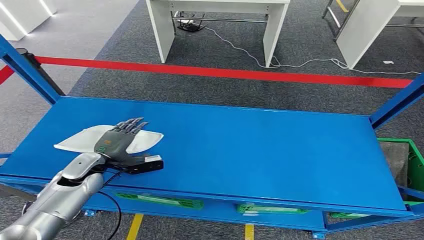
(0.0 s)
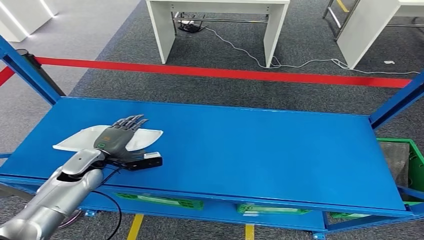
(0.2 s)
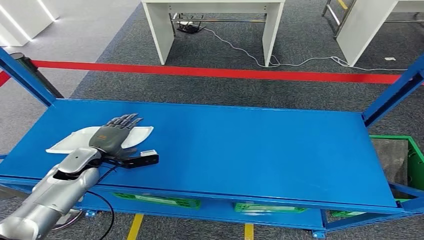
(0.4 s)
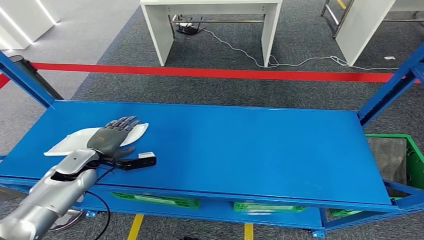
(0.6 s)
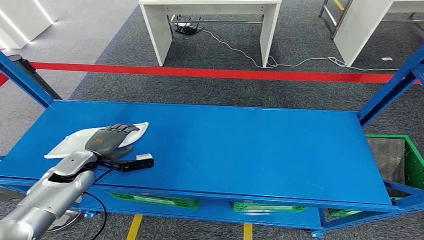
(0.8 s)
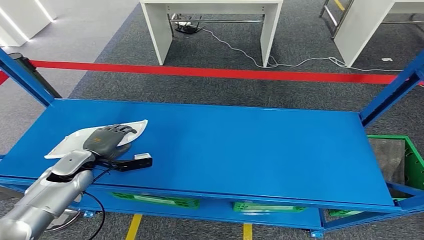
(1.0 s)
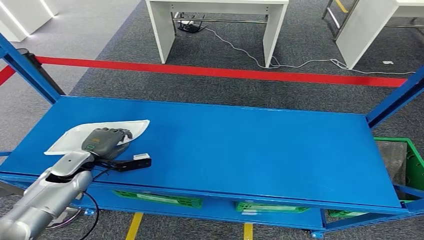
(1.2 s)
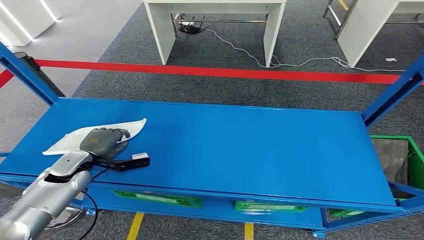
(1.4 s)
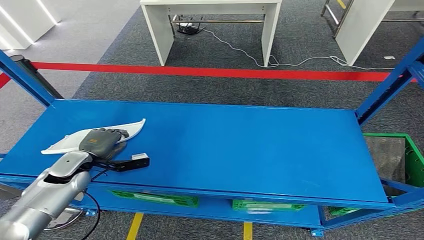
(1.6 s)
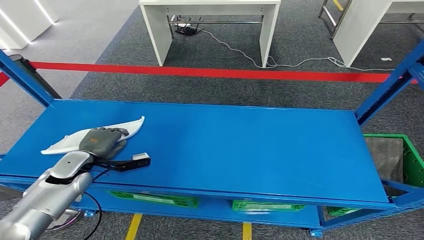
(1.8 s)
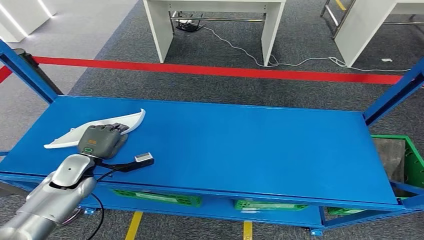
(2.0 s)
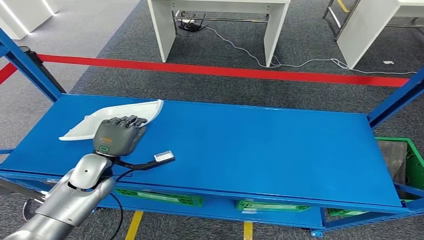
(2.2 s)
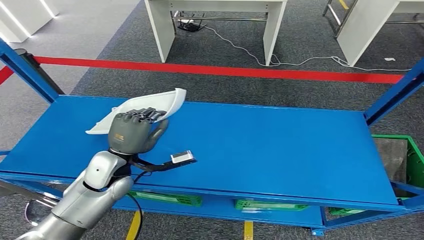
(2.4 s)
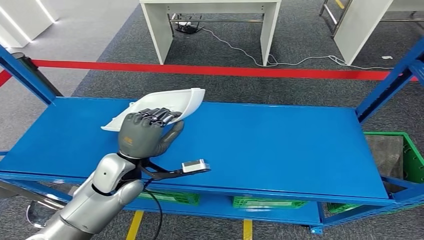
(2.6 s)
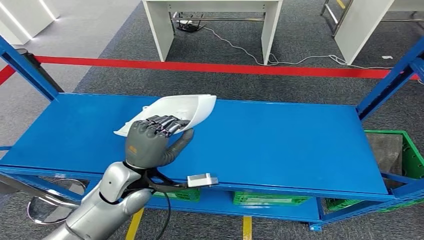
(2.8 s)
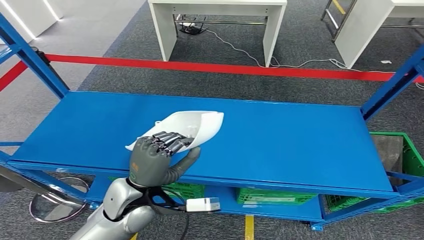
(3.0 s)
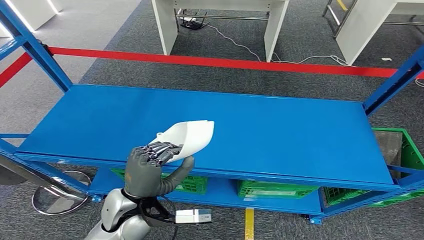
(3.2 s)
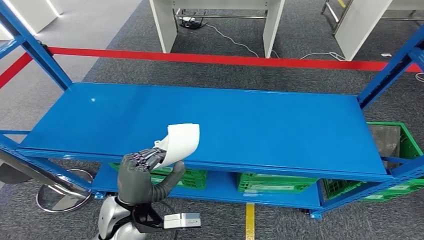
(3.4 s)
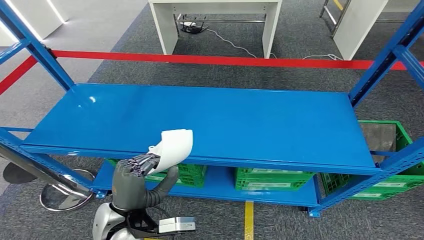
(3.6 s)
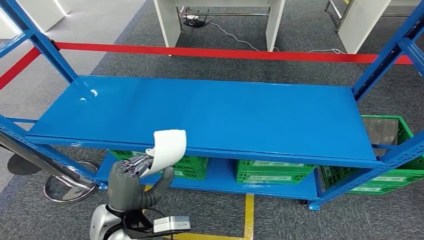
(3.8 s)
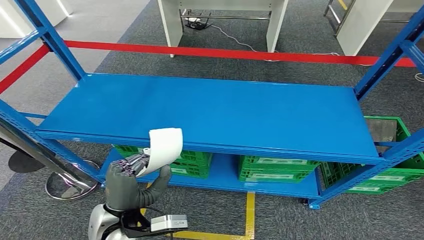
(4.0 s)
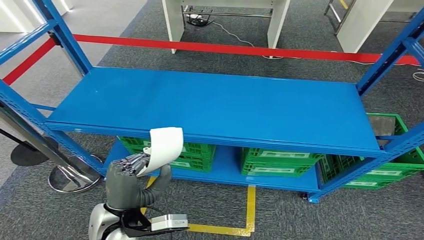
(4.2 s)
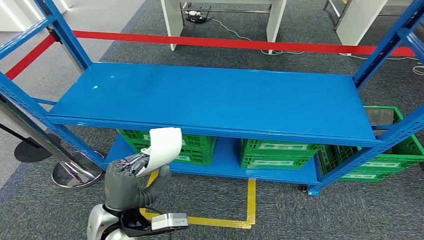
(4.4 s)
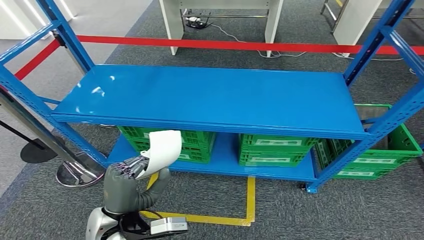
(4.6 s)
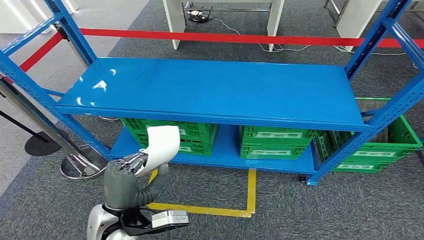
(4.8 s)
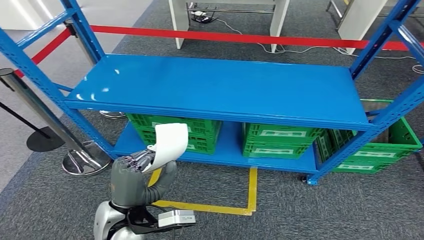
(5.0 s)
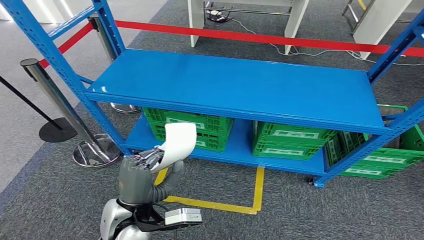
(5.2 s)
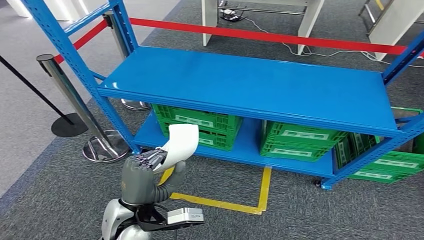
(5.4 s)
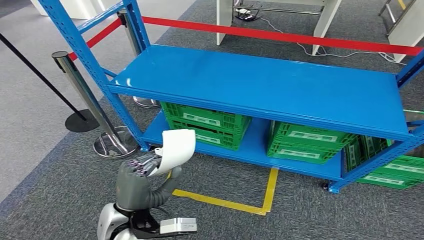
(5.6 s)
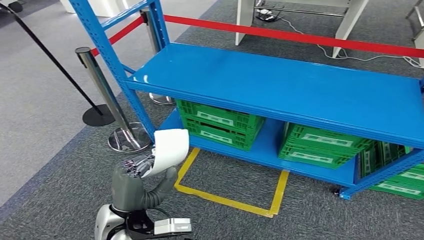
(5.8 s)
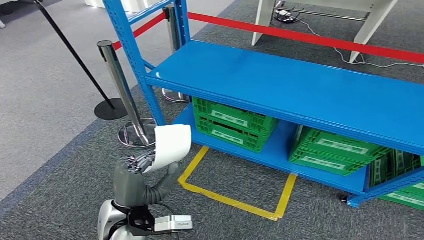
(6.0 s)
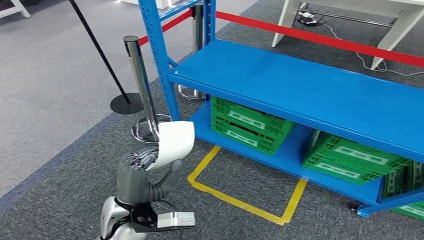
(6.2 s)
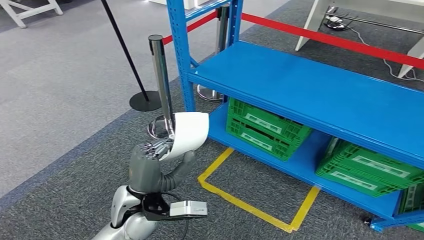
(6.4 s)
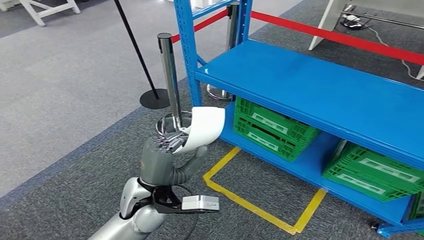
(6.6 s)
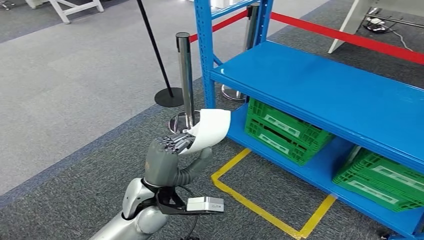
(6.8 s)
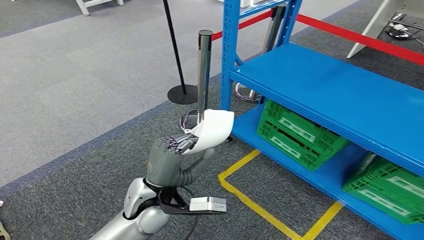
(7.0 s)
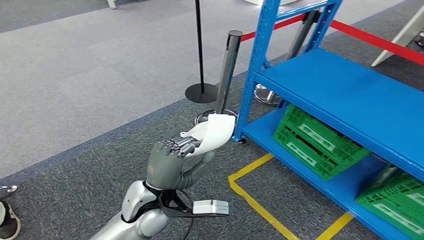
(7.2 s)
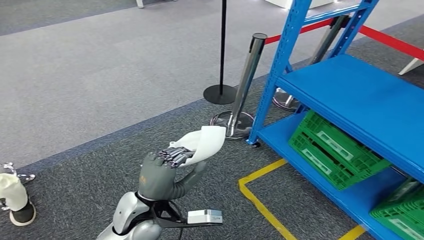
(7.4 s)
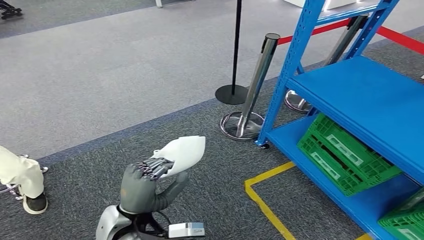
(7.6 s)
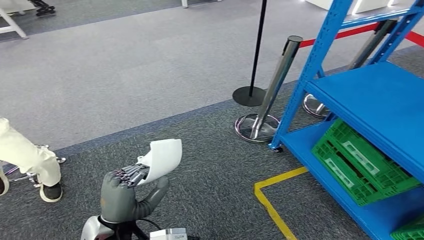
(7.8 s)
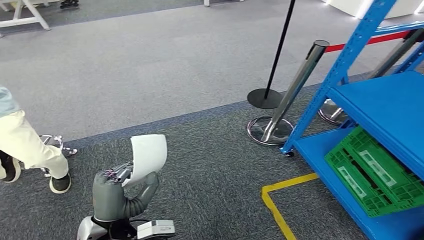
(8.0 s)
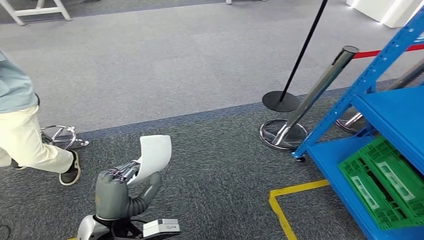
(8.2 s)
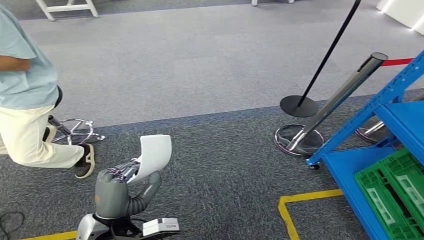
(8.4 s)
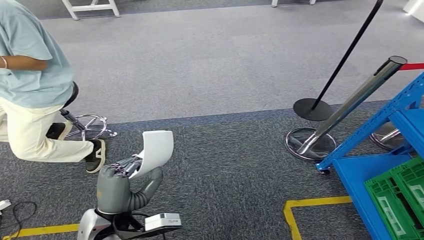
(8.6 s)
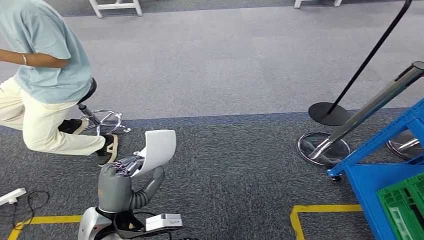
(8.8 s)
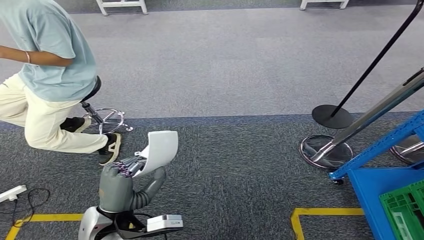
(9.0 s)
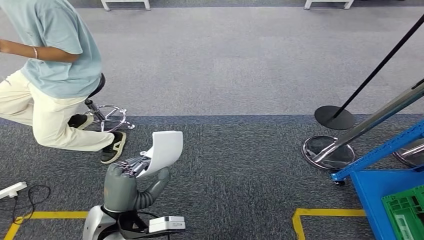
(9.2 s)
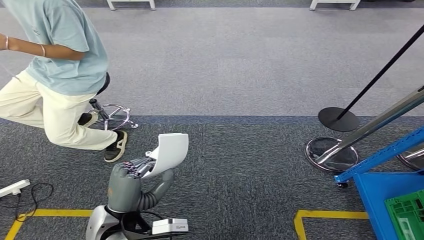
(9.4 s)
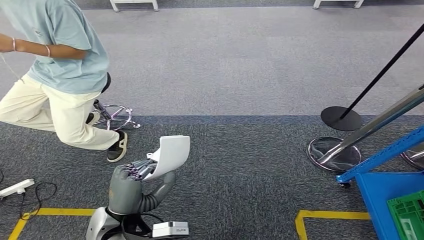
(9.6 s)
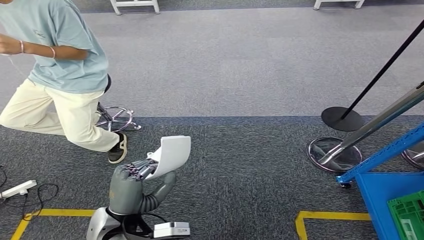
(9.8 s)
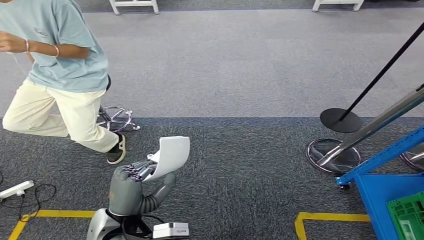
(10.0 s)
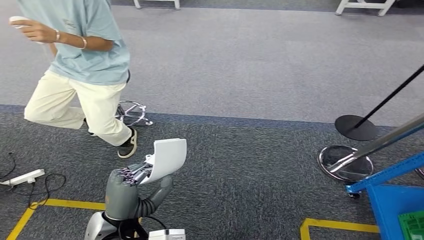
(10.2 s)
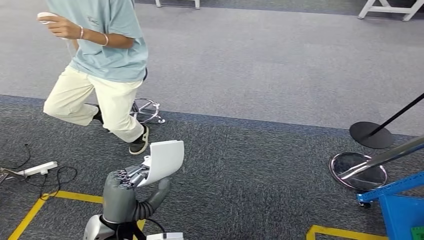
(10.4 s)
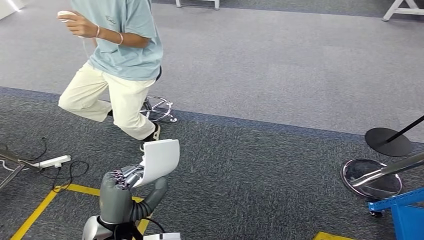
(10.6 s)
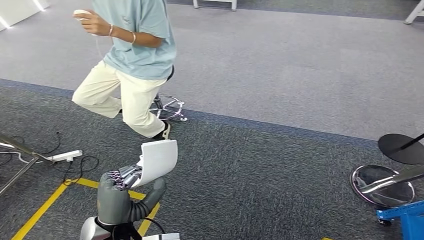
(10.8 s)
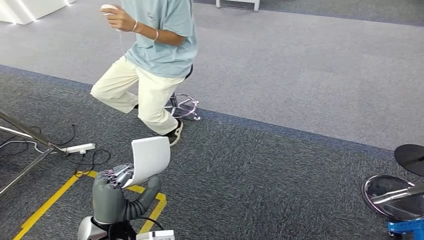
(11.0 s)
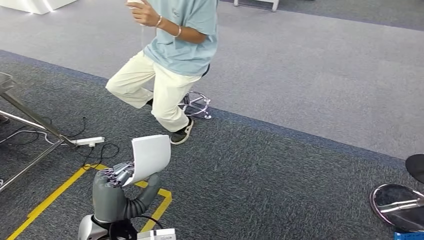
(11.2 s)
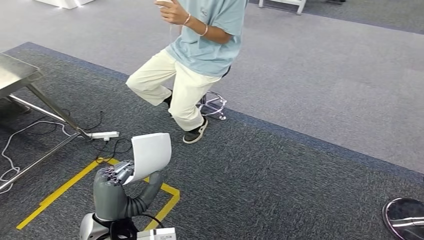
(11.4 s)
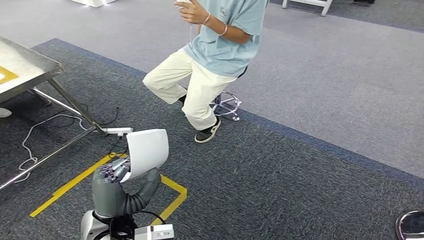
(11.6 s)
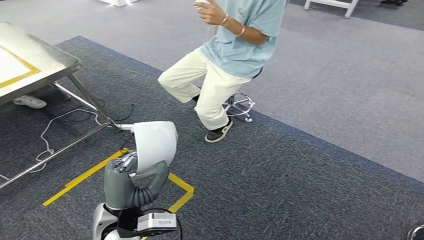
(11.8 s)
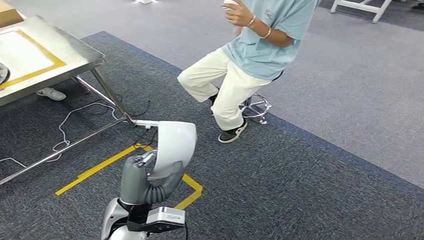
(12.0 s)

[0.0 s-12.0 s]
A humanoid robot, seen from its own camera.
Step, 0.0 to 3.8 s: Pick up the small component from the shelf.

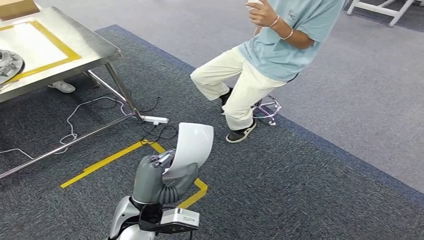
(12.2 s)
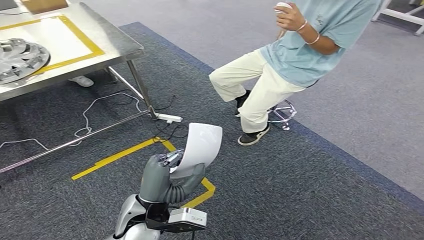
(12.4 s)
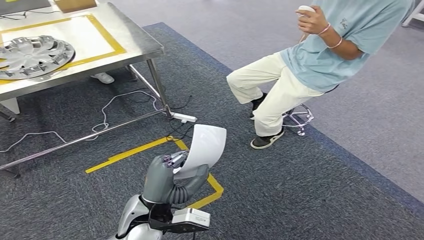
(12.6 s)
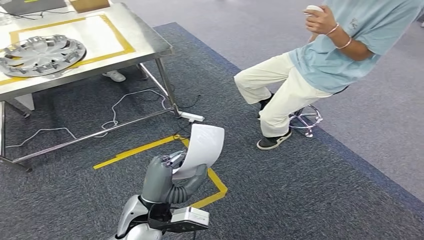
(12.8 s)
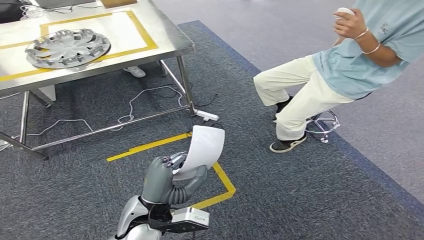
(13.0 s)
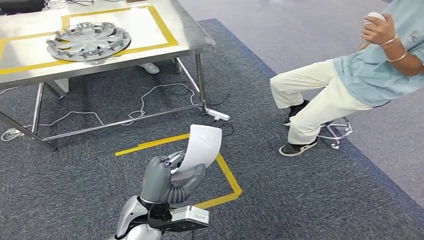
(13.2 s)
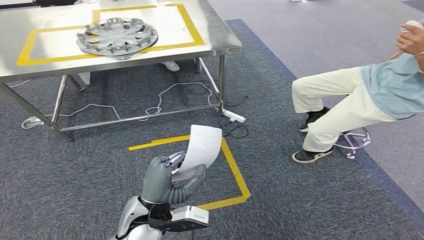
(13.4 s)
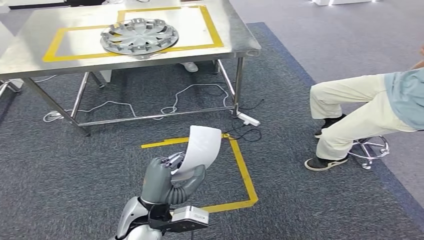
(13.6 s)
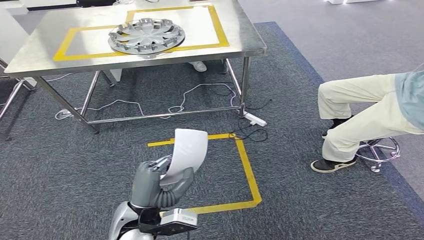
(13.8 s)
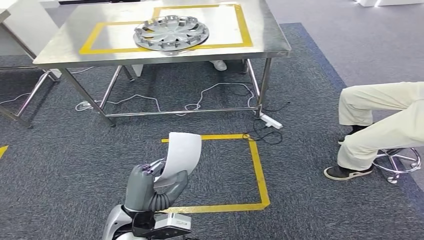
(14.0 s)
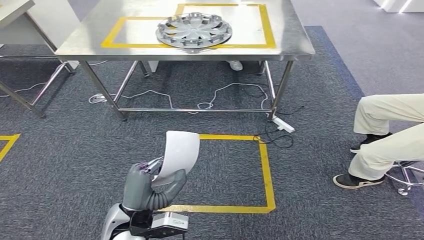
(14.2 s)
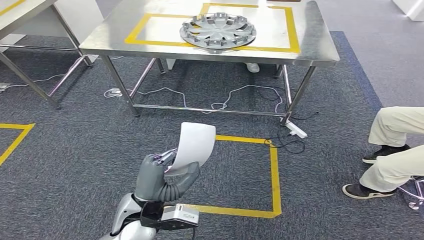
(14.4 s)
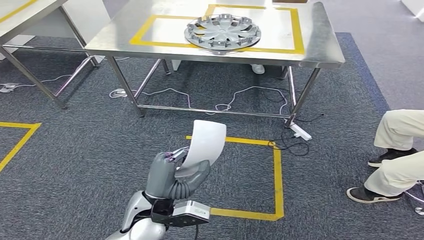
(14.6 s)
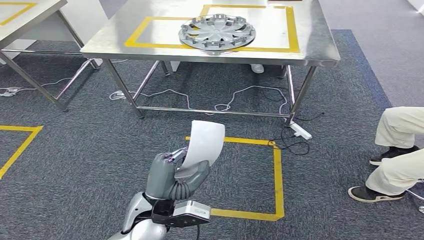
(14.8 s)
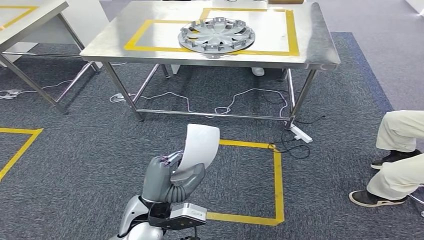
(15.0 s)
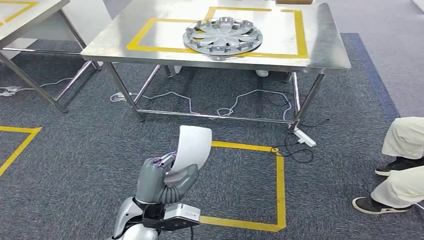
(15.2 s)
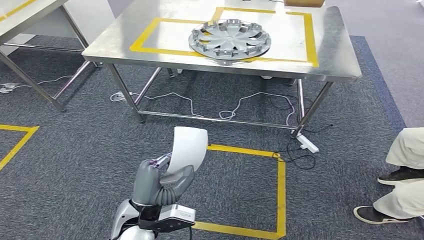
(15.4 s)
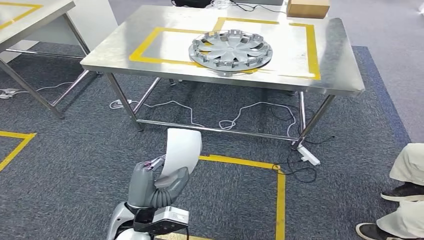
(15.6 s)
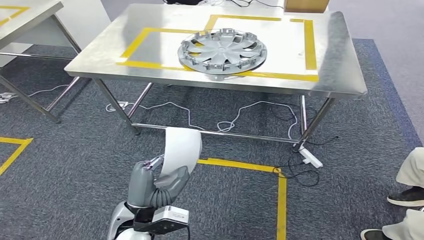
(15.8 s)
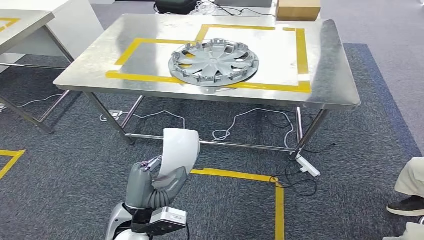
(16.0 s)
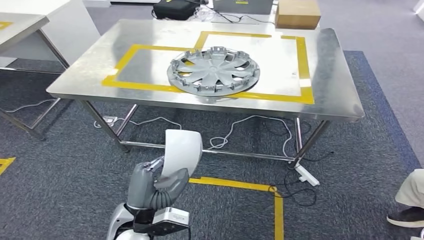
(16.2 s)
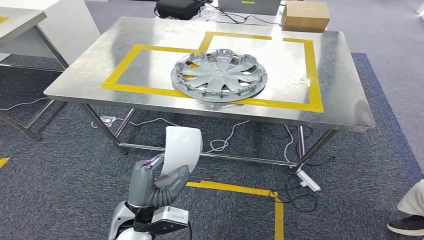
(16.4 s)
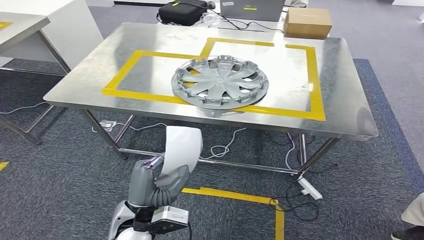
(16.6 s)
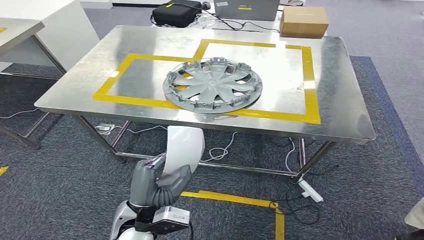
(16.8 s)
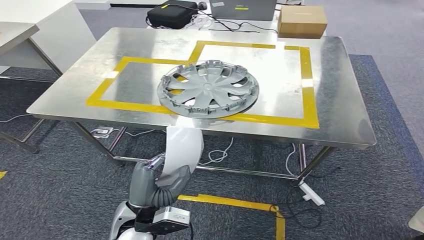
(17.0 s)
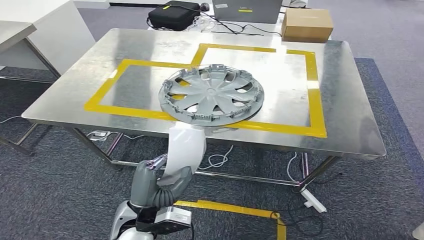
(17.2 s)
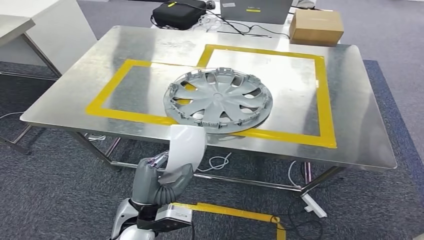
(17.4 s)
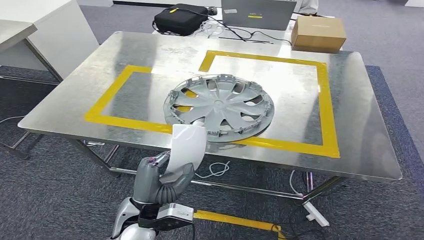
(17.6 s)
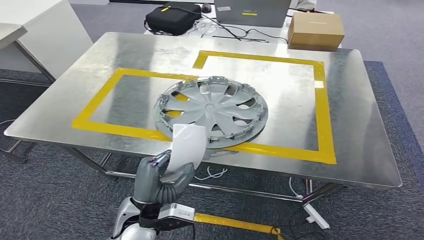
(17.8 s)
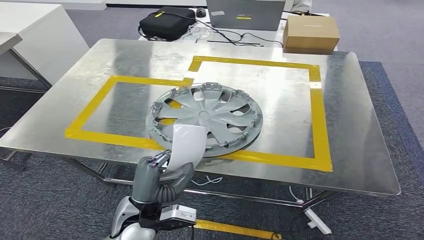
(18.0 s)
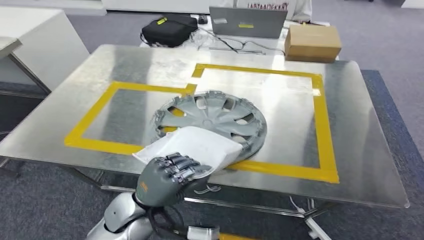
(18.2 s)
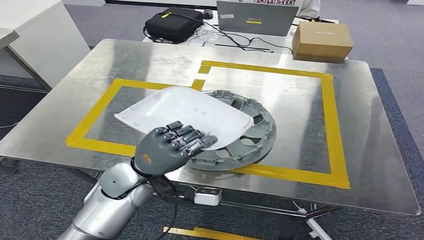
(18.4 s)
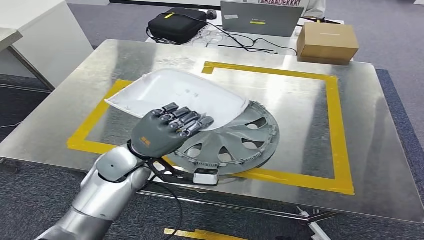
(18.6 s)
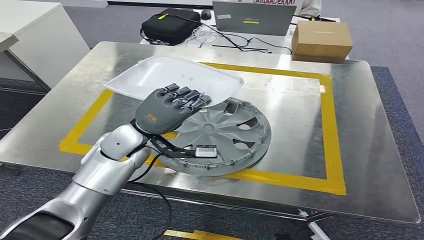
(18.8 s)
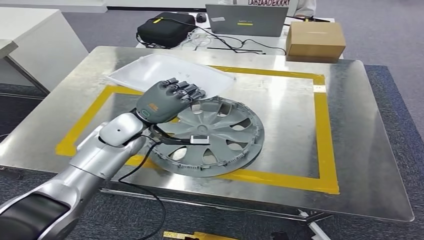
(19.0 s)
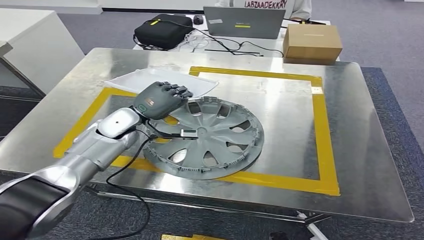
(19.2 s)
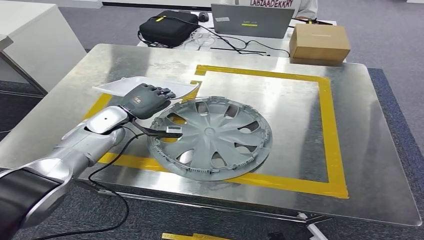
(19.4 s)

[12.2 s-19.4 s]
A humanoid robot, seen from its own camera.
Step, 12.2 to 17.2 s: Move the small component to the workbench.
